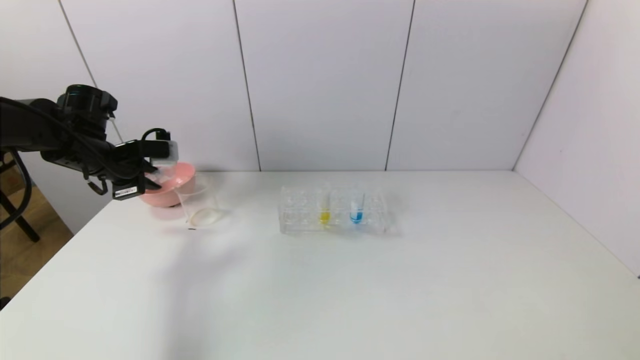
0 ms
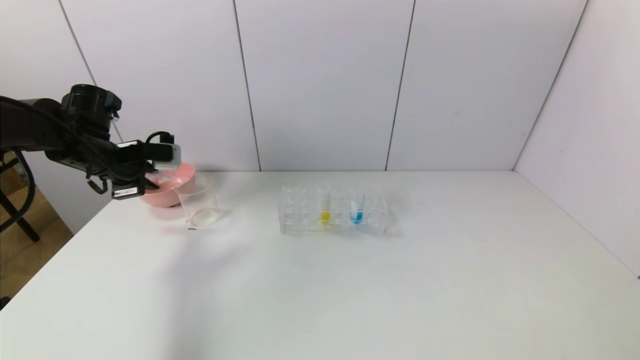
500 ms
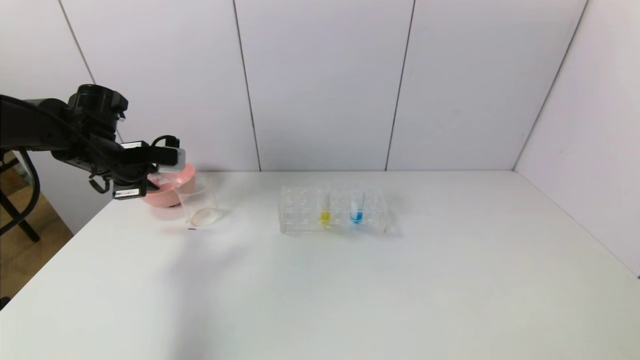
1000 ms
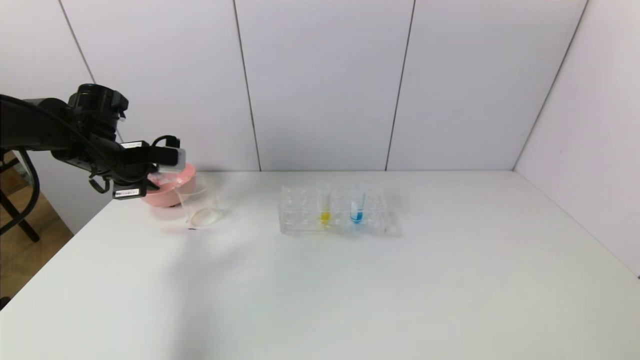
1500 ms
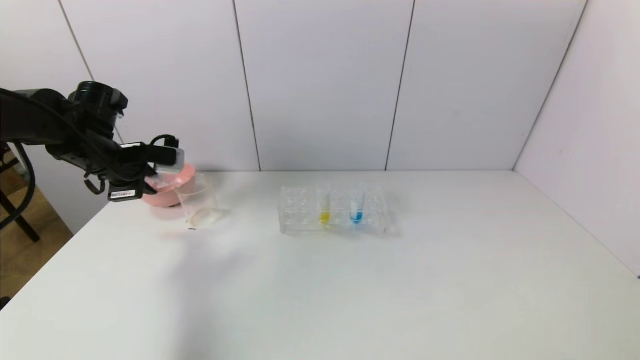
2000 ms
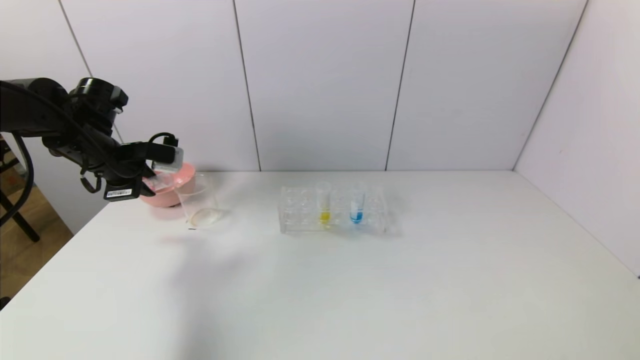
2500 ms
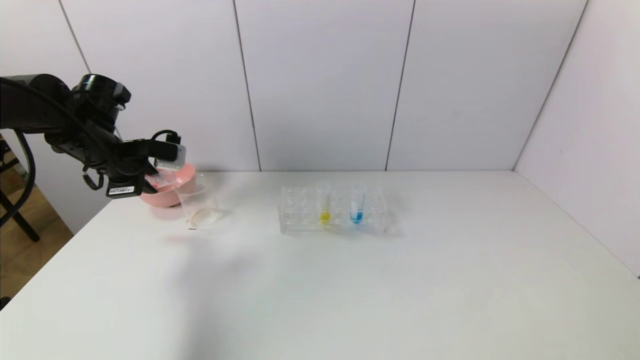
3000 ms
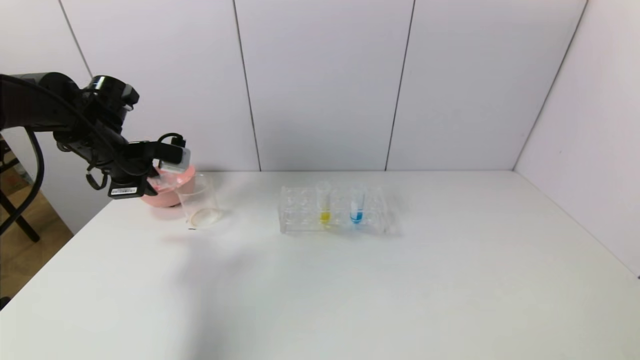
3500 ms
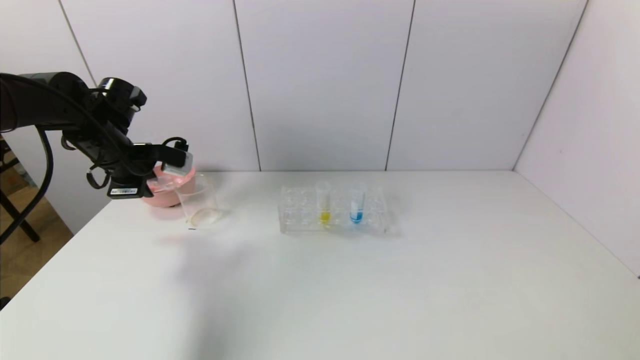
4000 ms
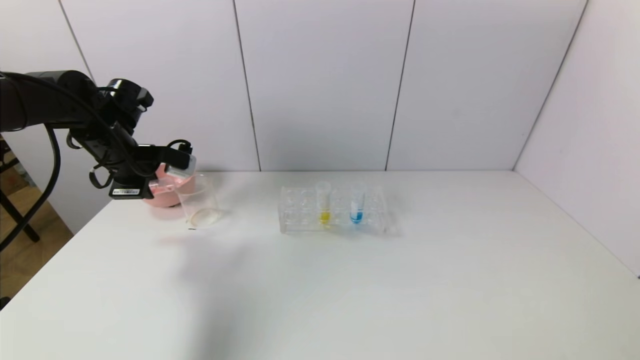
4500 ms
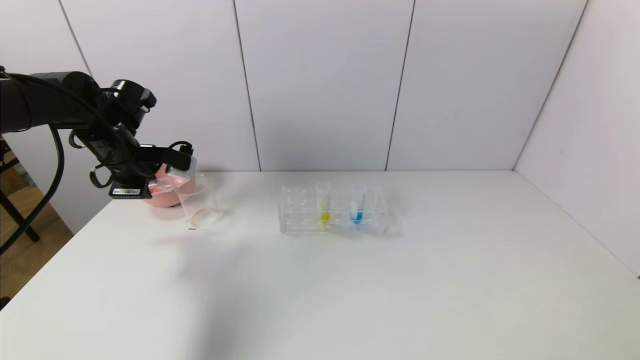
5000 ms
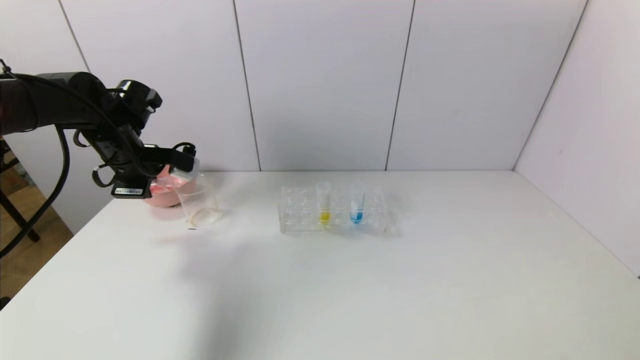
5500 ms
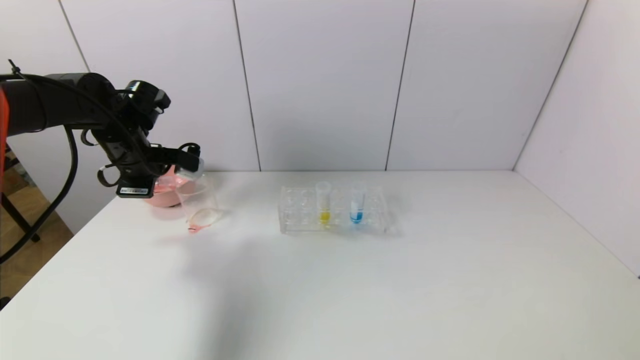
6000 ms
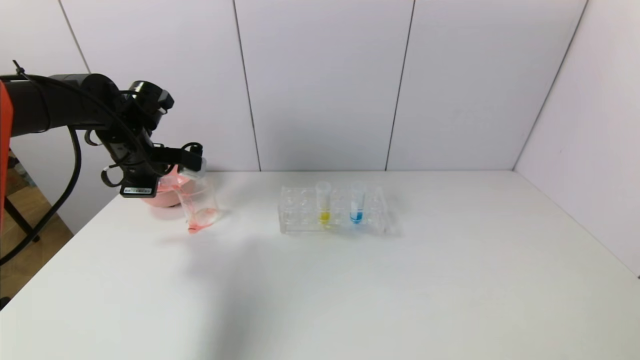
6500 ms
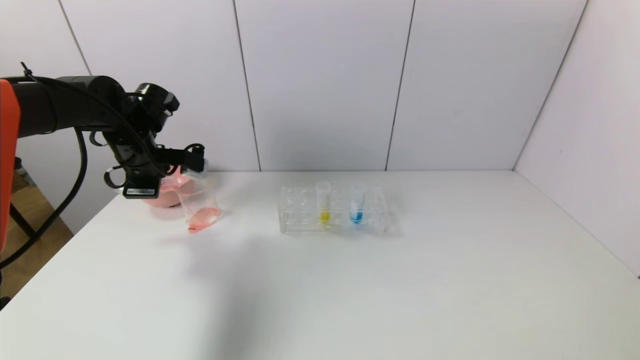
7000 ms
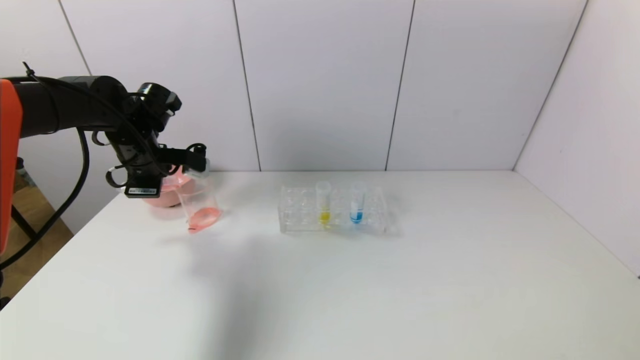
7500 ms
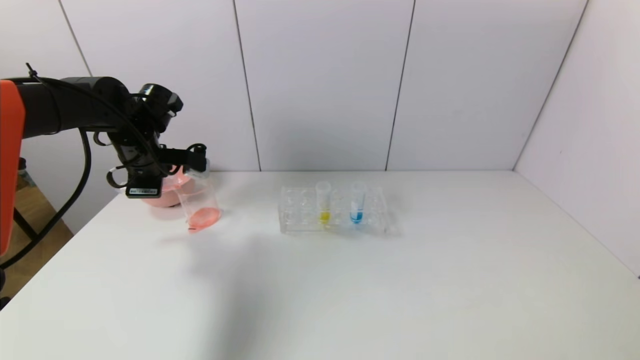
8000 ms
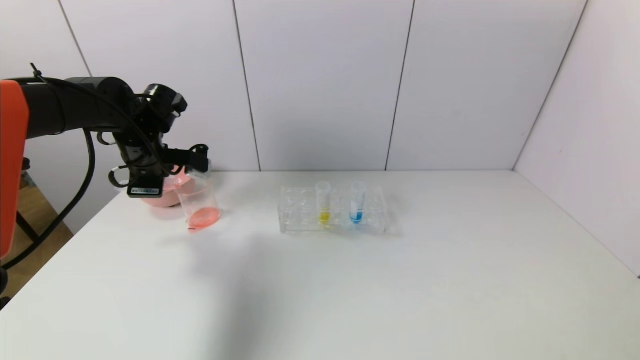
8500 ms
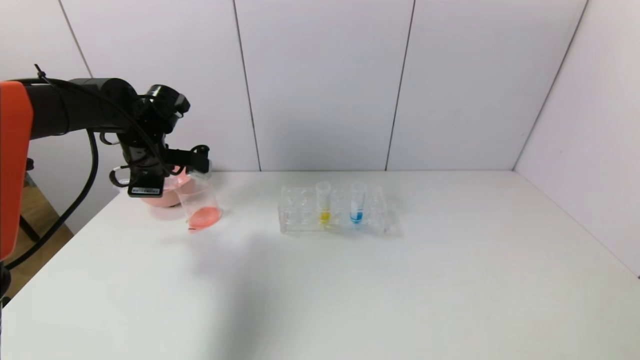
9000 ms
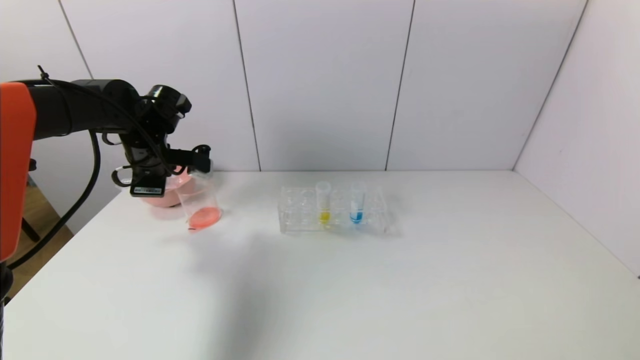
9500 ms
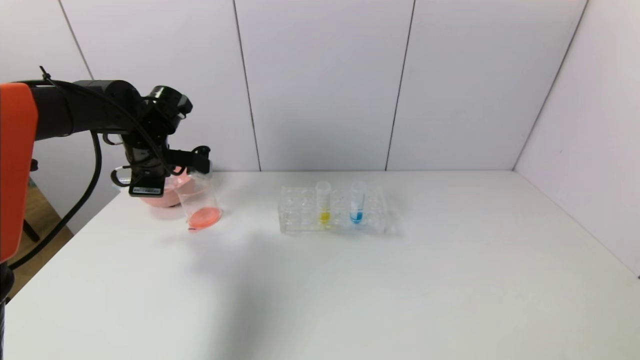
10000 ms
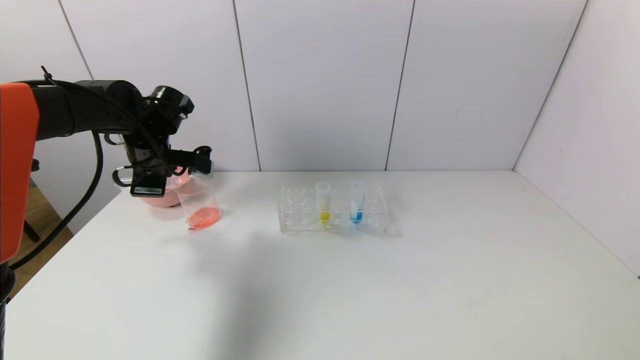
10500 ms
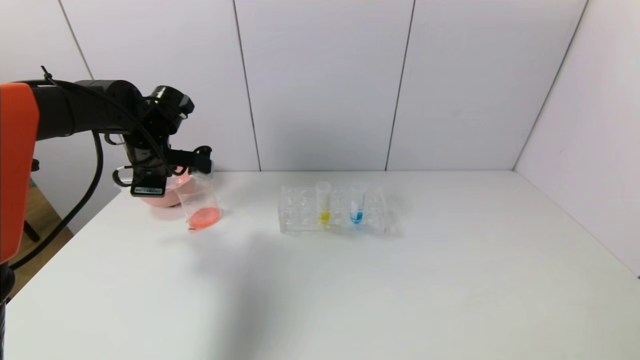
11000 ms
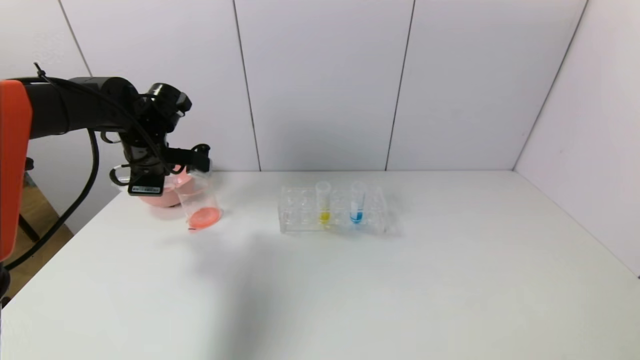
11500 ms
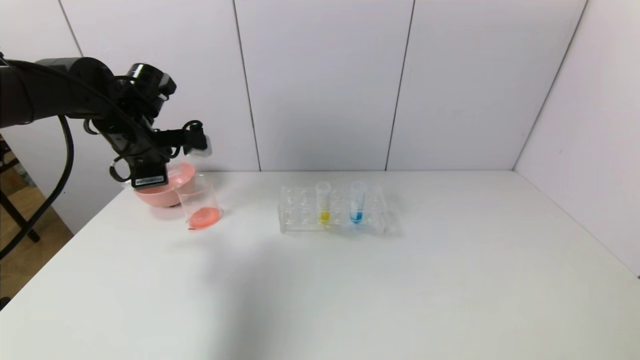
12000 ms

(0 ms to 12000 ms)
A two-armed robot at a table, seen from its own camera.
Task of the whole recording: pick up the test tube with yellow pigment and the test tube with red pigment by grippers and pour them into the beaker.
Step, 0 ms - 11000 ms: Pour the red reagent into the graduated cylinder with the left gripper.
0 ms - 4000 ms: The grippers make only small movements.
4000 ms - 12000 ms: There are only small adjustments of the grippers.

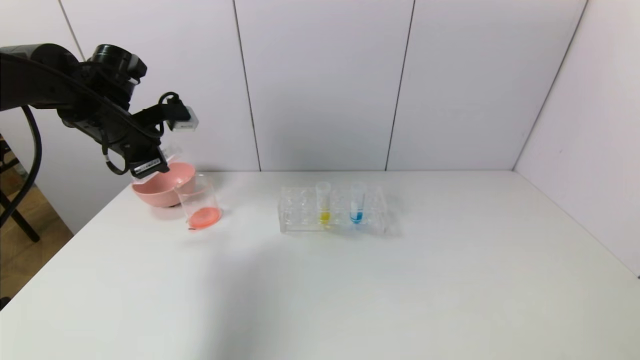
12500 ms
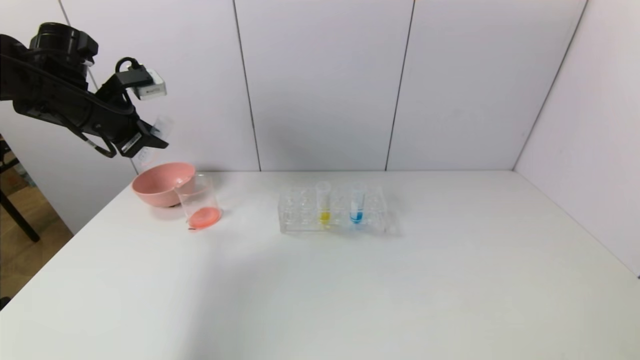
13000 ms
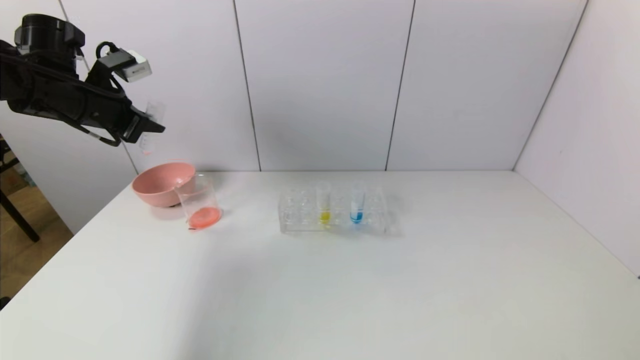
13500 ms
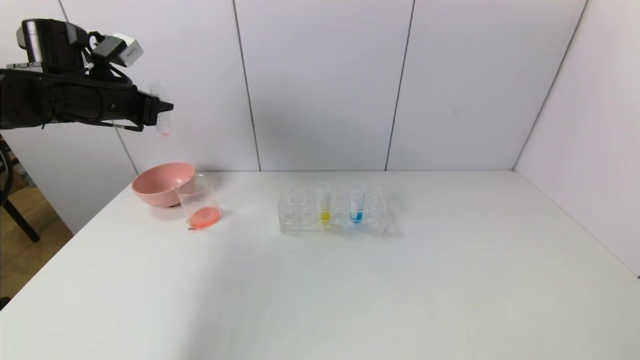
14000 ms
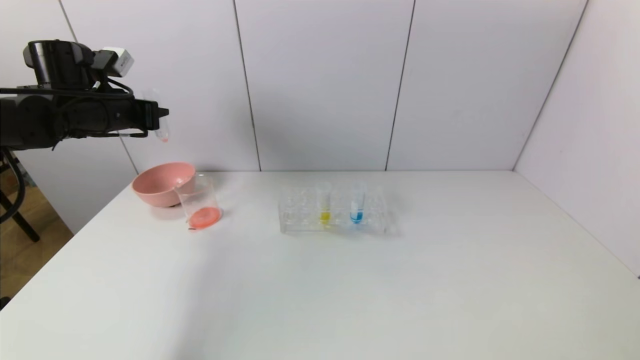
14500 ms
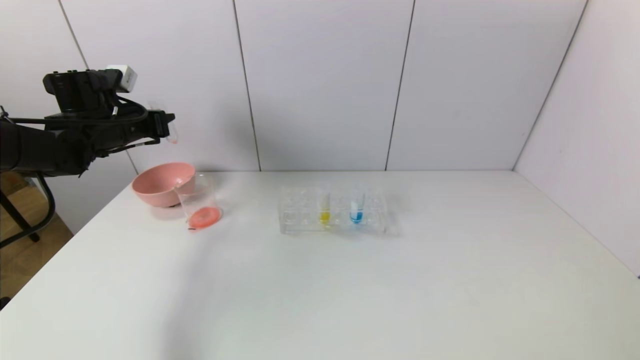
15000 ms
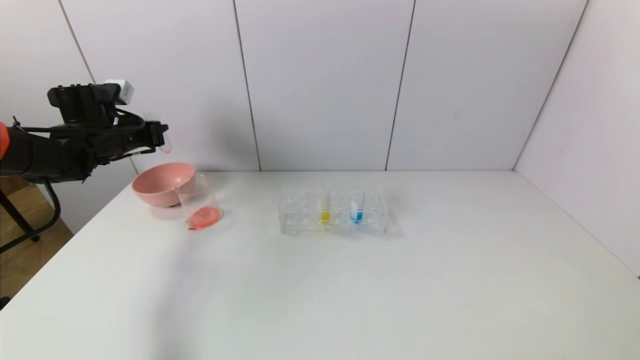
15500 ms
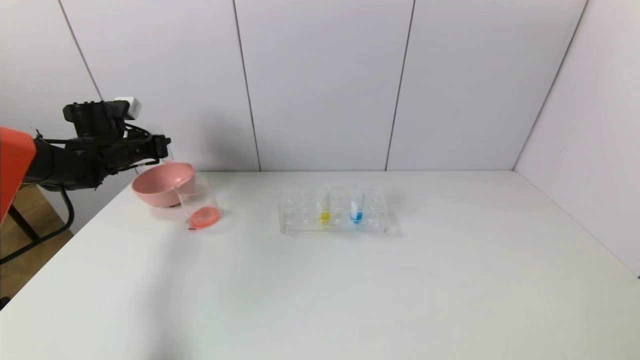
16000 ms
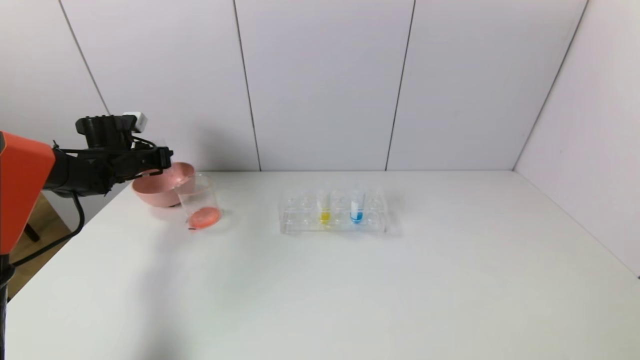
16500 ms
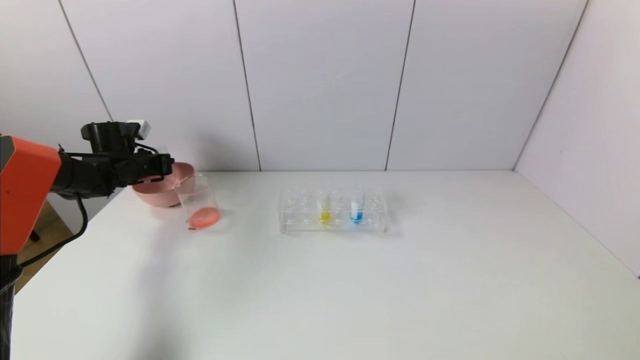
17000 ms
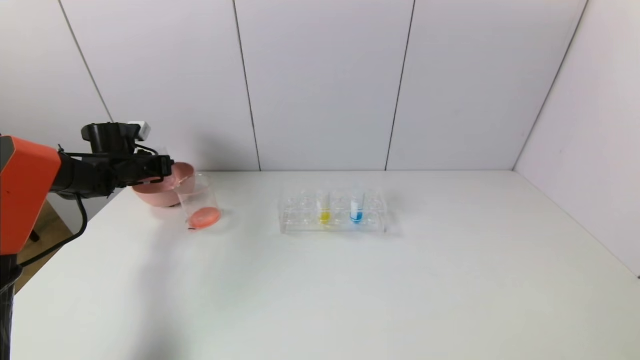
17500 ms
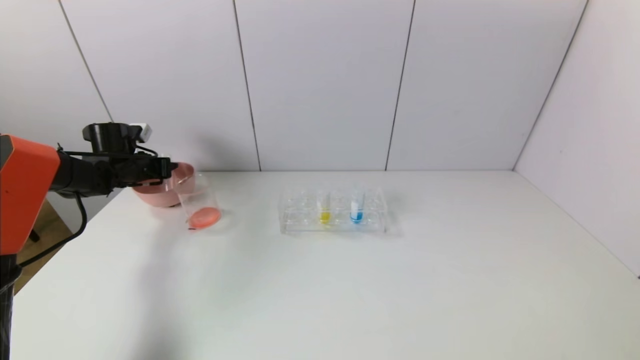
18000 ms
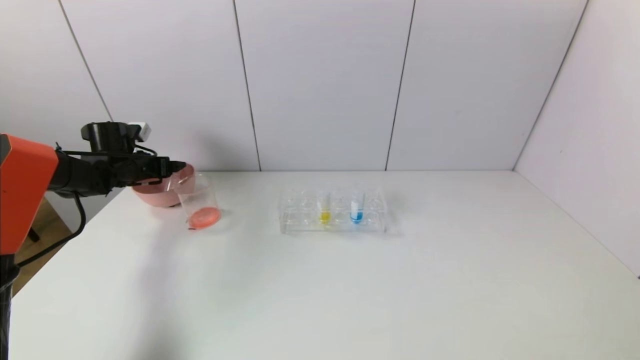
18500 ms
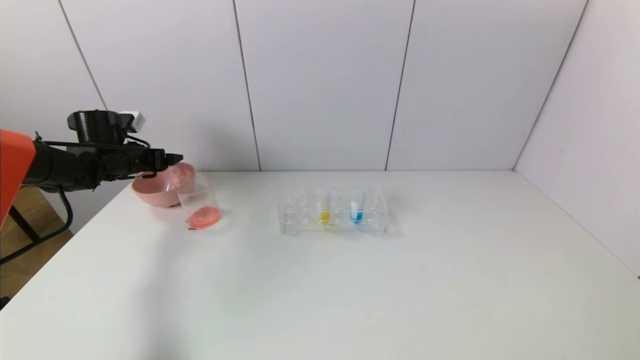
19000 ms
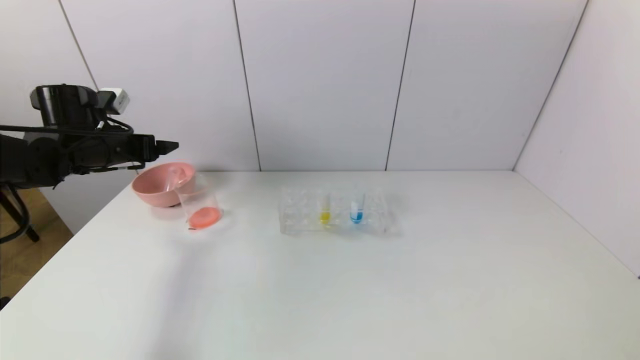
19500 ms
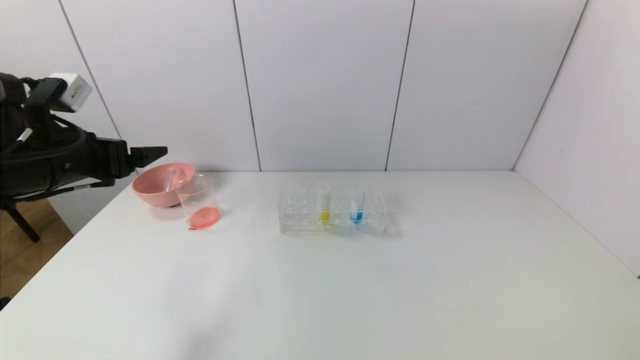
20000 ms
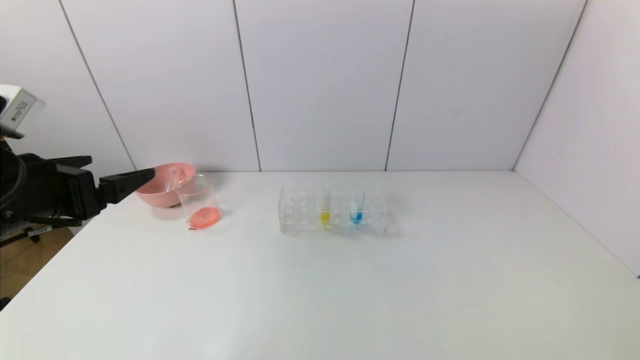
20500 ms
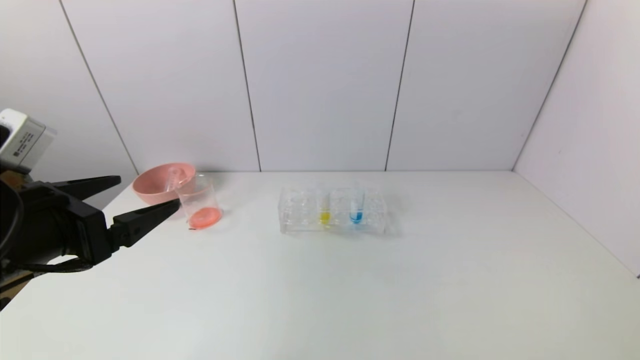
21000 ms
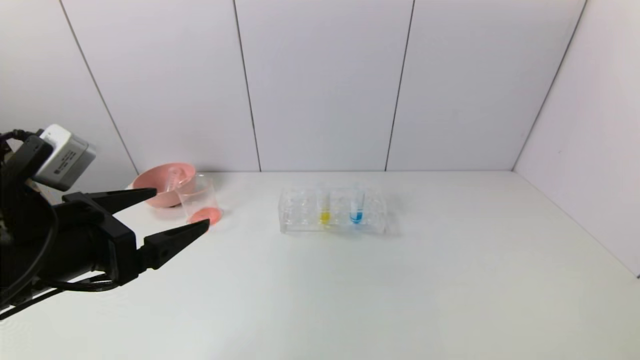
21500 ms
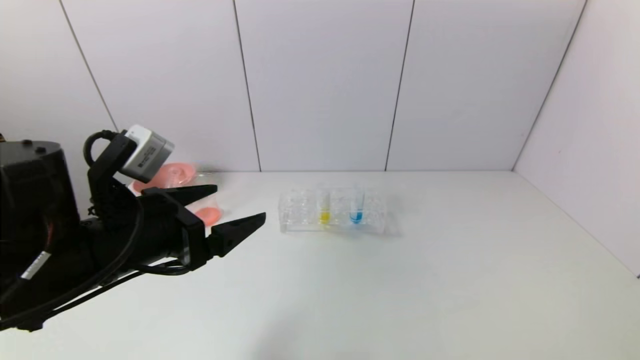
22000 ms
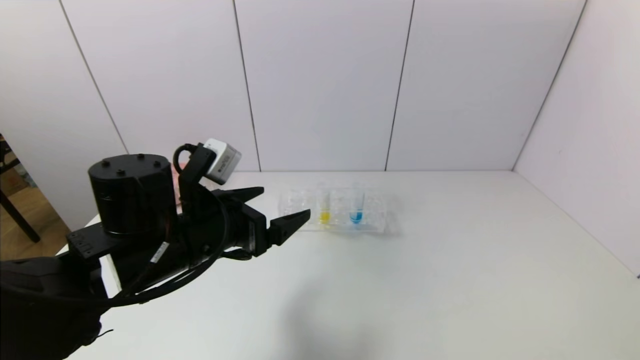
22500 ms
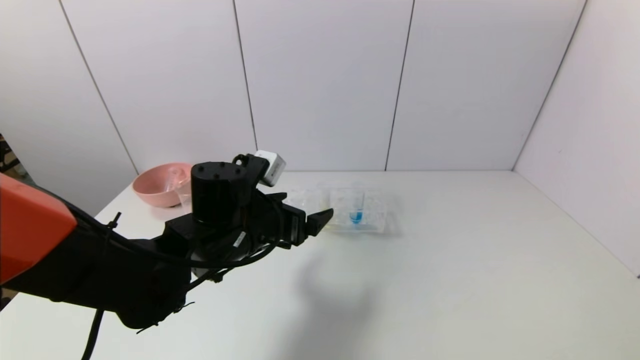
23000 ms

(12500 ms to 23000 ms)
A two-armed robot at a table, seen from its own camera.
Task of the whole recording: pick up the test tube with yellow pigment and the test tube with red pigment by grippers and pour them into the beaker.
Step, 12500 ms - 18000 ms: Place the test tube into the pink bowl with the left gripper.
12500 ms - 14500 ms: The left gripper moves some 5 cm.
14500 ms - 16500 ms: The left gripper shifts approximately 15 cm downward, forward and to the left.
16500 ms - 19000 ms: The left gripper opens its fingers.
19000 ms - 21000 ms: The left gripper shifts some 35 cm backward and to the right.
21000 ms - 23000 ms: The left gripper goes some 20 cm to the right, forward and downward.
